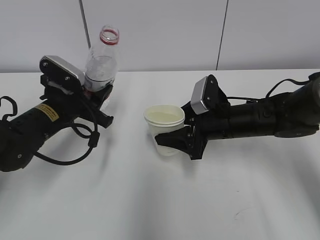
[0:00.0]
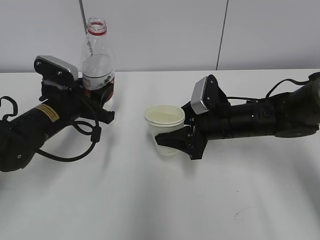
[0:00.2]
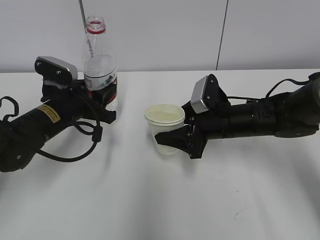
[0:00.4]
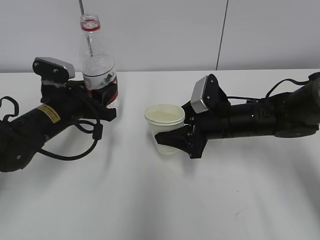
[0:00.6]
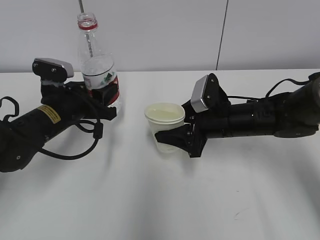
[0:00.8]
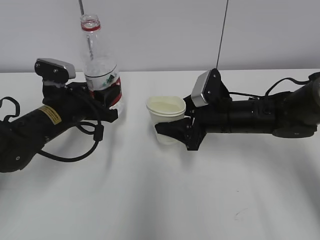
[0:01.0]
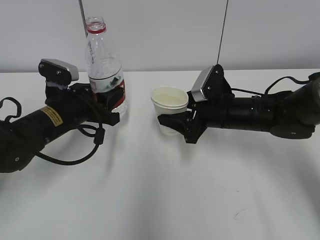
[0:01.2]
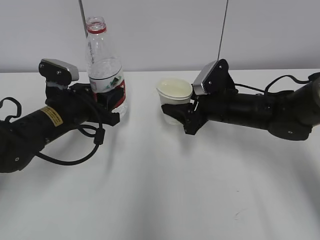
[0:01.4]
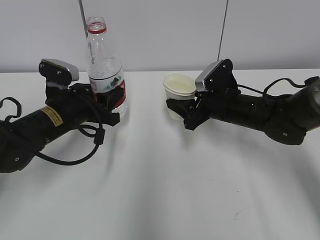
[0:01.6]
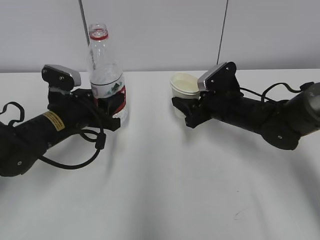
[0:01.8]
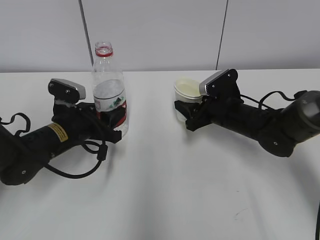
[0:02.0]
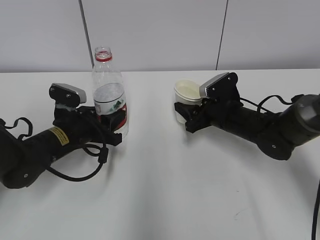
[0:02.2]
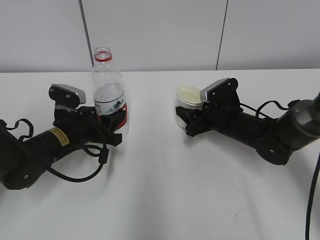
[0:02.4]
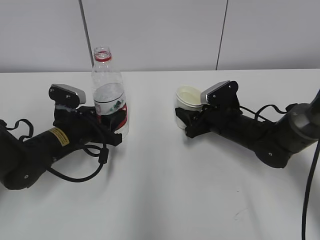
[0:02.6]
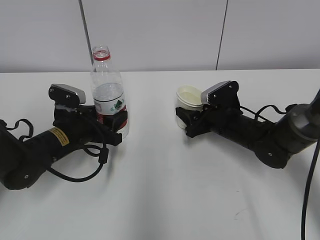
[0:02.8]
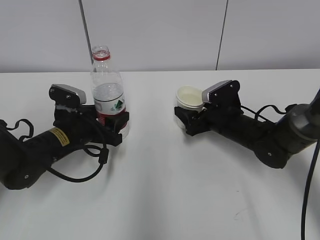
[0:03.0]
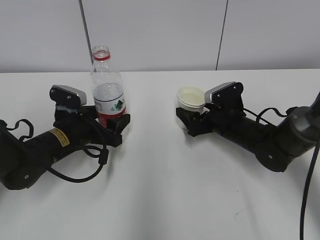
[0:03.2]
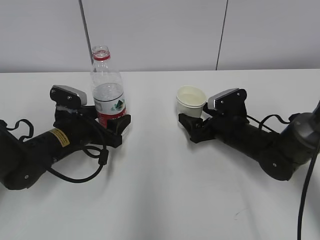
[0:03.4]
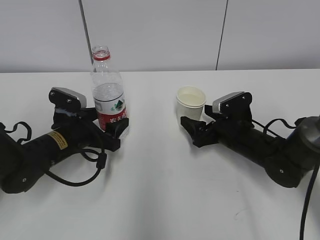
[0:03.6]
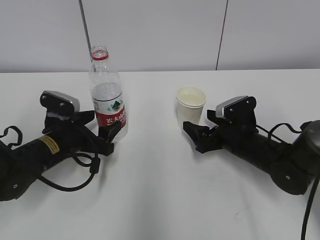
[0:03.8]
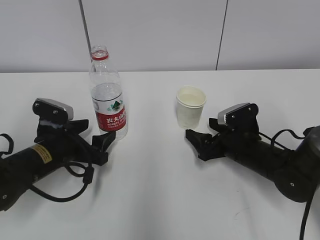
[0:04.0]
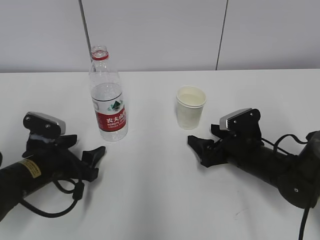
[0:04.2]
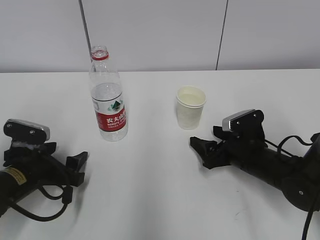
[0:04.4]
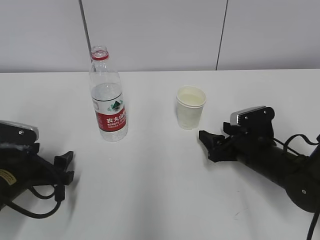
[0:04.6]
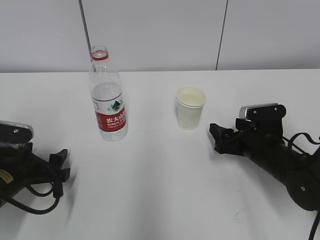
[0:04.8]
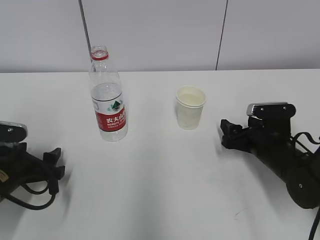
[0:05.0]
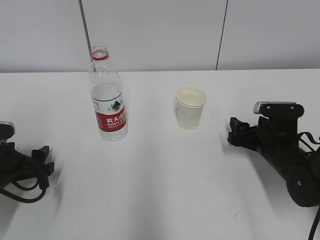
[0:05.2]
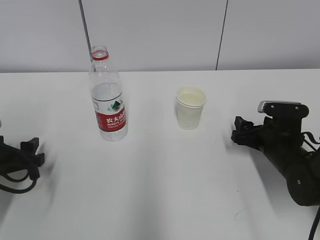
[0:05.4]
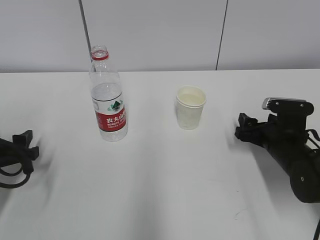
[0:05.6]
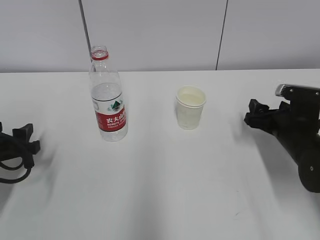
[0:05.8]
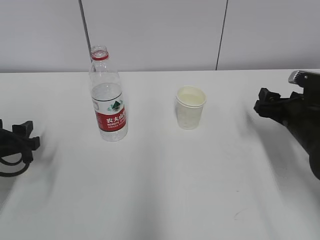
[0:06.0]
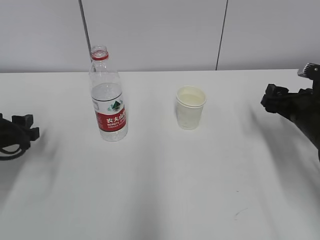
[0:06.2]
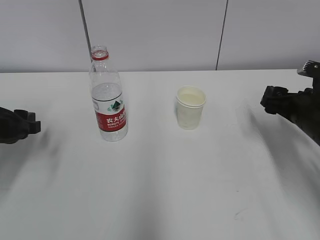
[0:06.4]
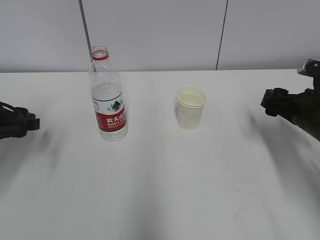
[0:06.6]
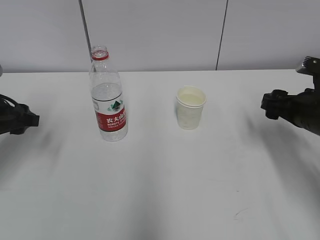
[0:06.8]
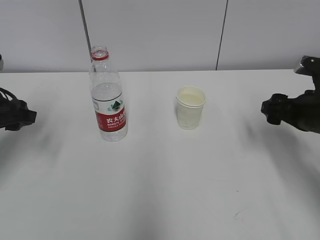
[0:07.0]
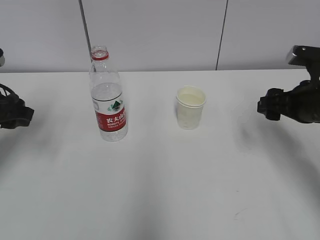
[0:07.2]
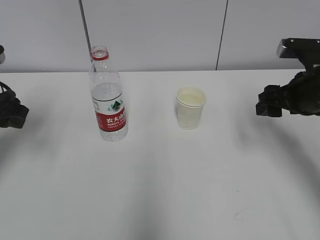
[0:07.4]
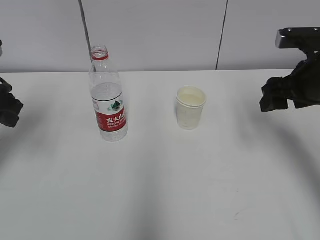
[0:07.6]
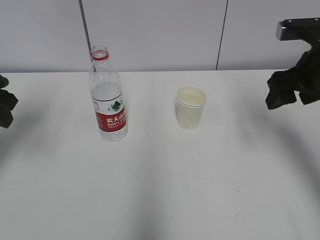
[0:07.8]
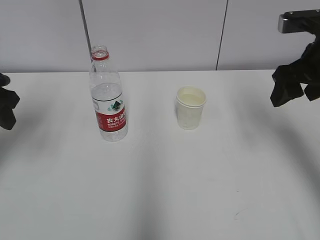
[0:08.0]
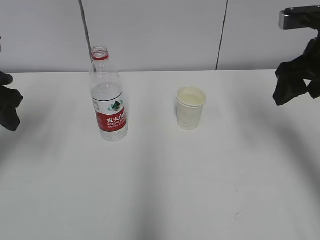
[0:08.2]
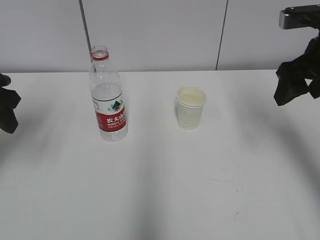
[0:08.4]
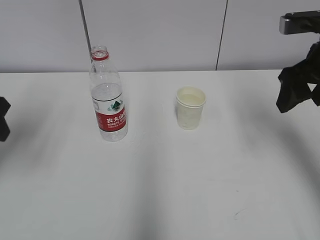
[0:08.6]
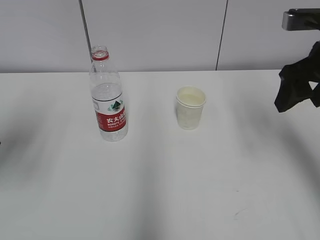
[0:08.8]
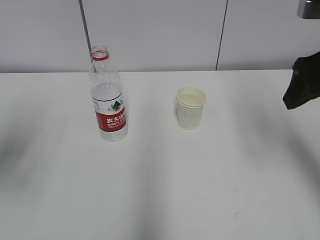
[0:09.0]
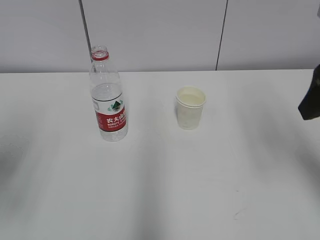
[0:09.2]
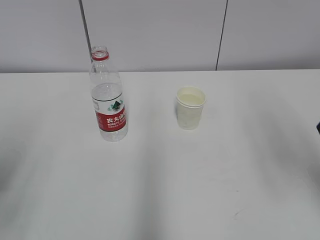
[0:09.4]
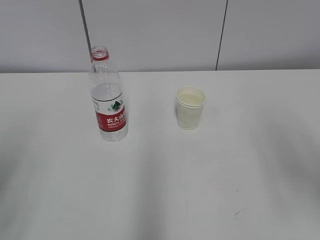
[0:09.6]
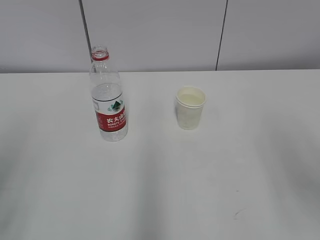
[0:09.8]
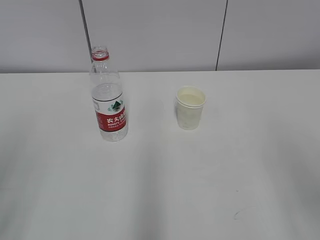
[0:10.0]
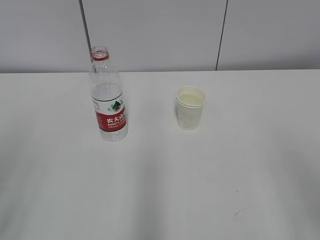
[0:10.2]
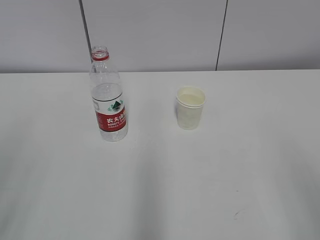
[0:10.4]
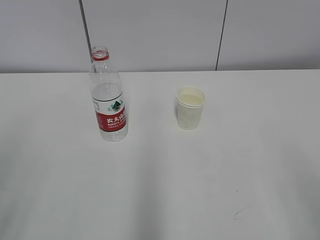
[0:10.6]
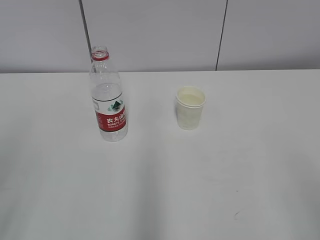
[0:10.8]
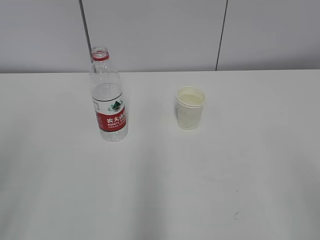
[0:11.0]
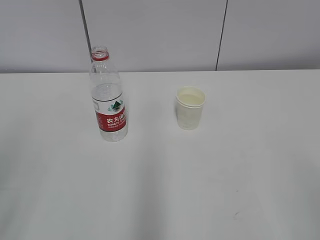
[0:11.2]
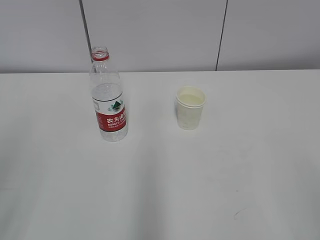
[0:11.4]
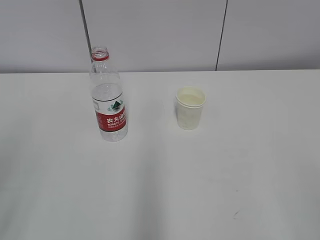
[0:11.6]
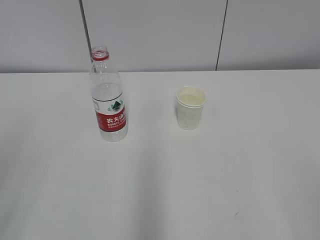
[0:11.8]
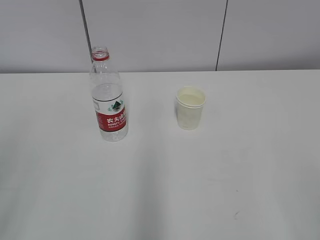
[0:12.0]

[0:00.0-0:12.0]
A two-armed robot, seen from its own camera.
0:01.6 to 0:03.0: The two grippers go roughly 5 cm downward. The right gripper opens its fingers; the left gripper opens up.
0:03.0 to 0:04.4: The right gripper travels backward by roughly 10 cm. Meanwhile the left gripper moves backward and to the left, about 10 cm.
0:04.4 to 0:06.0: The left gripper is displaced to the left by roughly 5 cm. Meanwhile the right gripper goes some 10 cm to the right and upward.
0:06.0 to 0:07.6: The two grippers go roughly 10 cm upward.
0:07.6 to 0:09.0: The right gripper is displaced upward and backward by about 10 cm; the left gripper shifts roughly 10 cm backward.
0:09.0 to 0:10.4: The right gripper travels backward by roughly 20 cm. The left gripper goes approximately 15 cm backward.

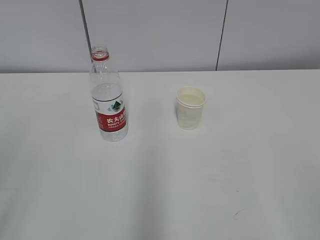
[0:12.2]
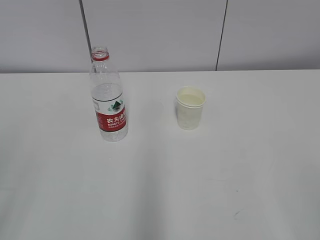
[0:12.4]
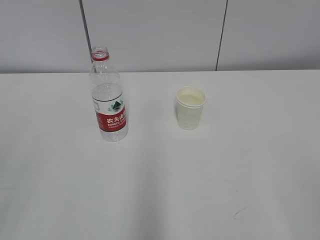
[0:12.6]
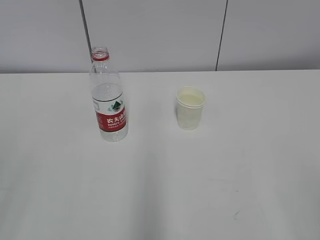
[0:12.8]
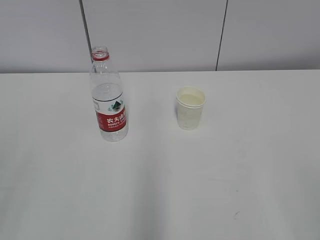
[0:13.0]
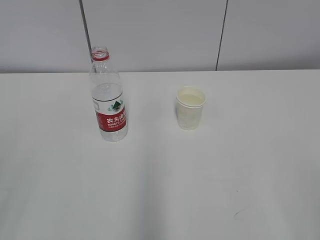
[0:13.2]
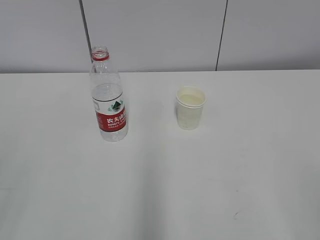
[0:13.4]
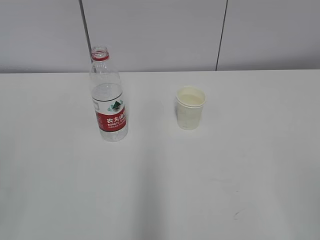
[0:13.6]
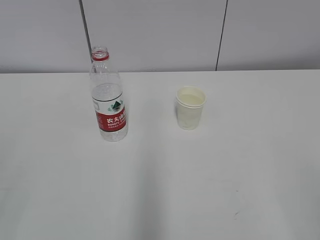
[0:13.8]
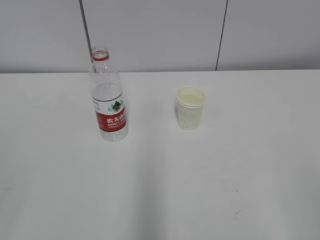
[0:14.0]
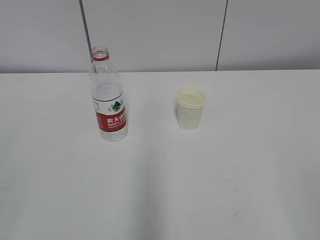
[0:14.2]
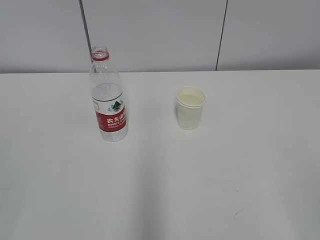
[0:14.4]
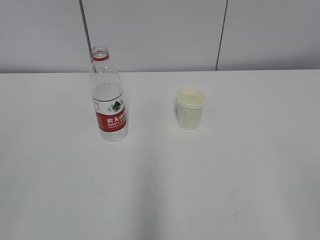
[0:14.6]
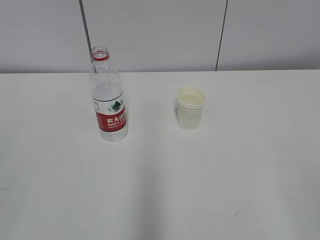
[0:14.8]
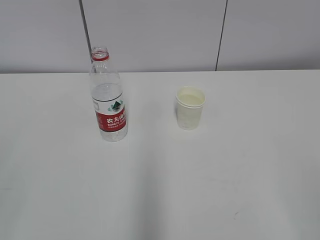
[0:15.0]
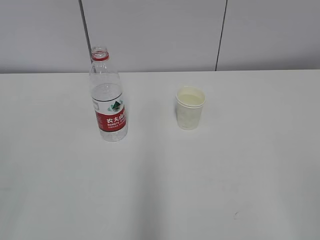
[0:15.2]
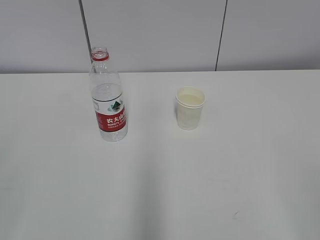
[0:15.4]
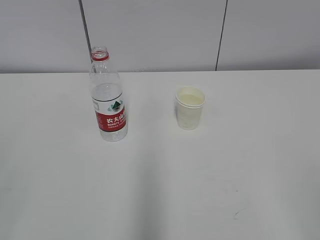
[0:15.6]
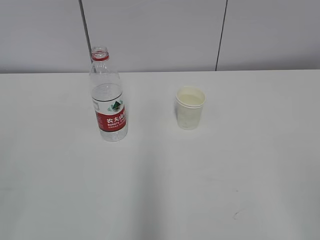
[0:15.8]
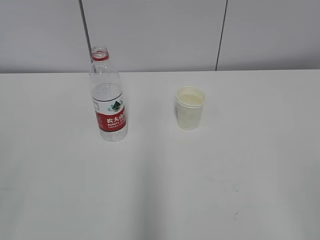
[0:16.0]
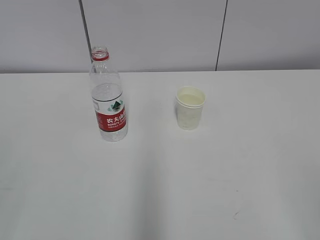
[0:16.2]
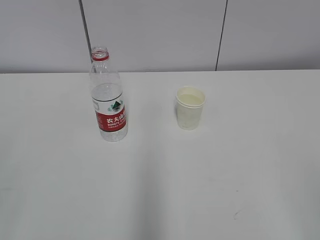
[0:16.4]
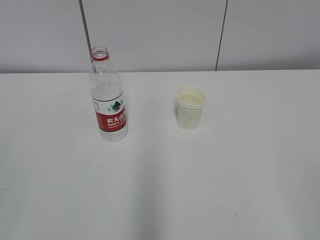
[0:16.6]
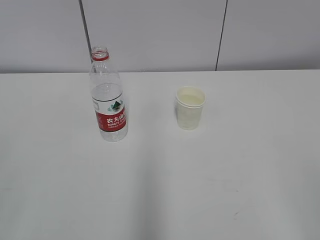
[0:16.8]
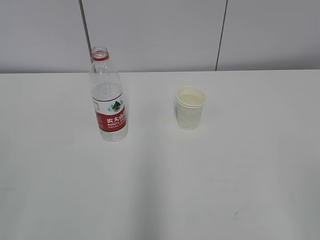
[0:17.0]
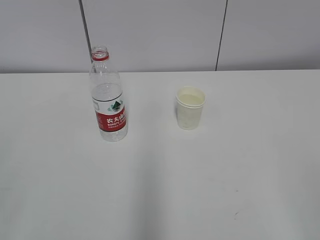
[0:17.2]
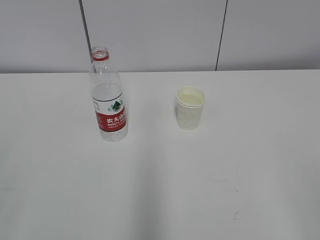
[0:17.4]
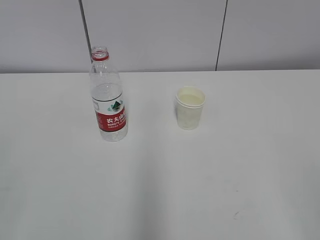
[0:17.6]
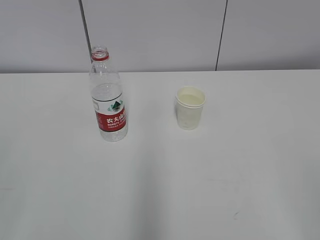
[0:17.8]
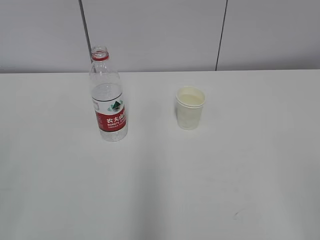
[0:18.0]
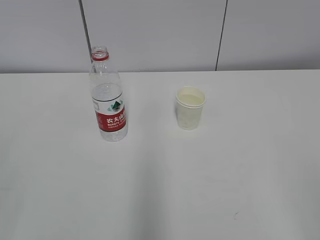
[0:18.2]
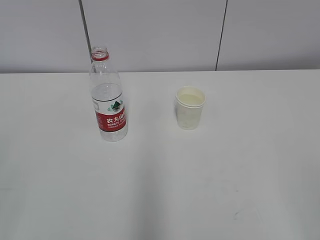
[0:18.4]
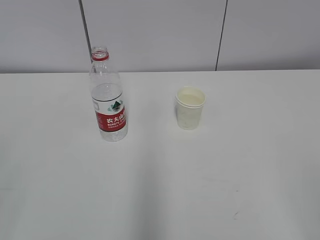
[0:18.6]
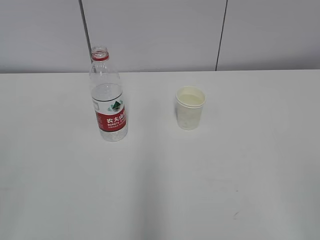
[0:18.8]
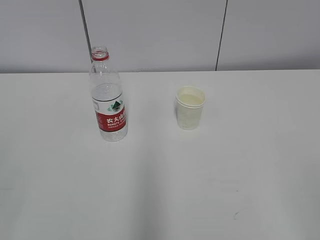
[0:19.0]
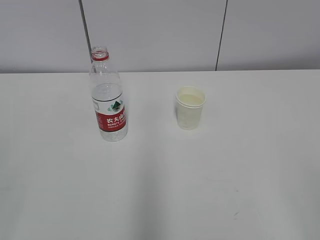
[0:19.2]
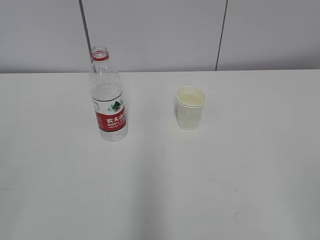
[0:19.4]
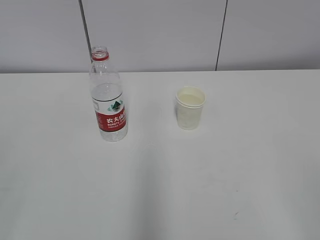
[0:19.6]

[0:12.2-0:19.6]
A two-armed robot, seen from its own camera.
0:15.2 to 0:19.6: Neither gripper changes place.

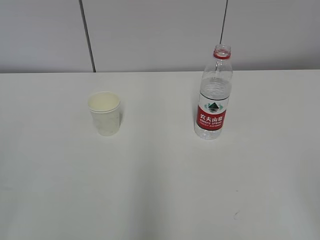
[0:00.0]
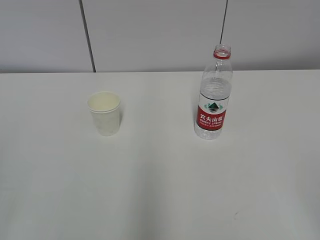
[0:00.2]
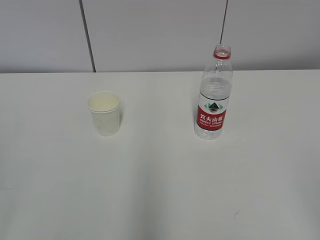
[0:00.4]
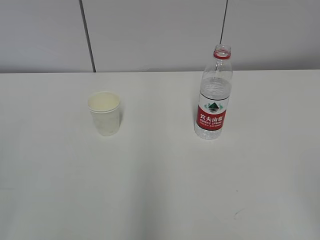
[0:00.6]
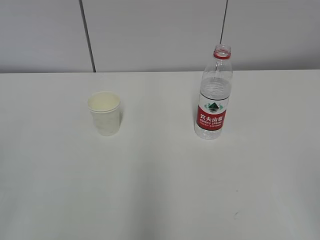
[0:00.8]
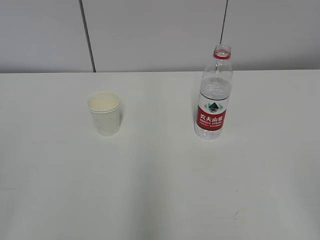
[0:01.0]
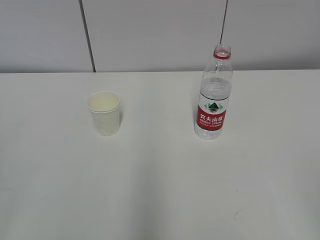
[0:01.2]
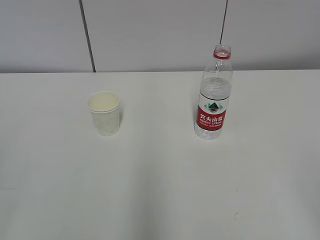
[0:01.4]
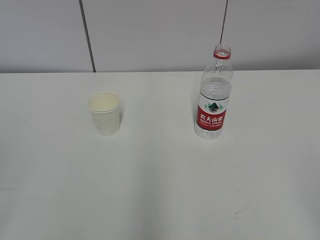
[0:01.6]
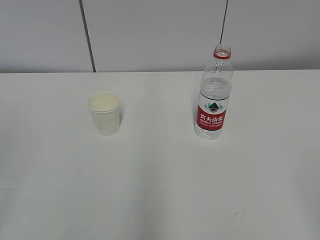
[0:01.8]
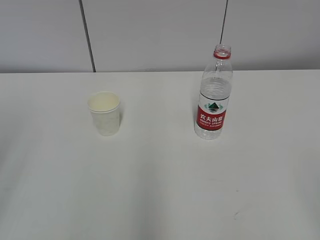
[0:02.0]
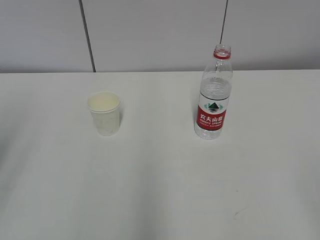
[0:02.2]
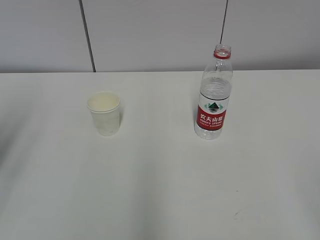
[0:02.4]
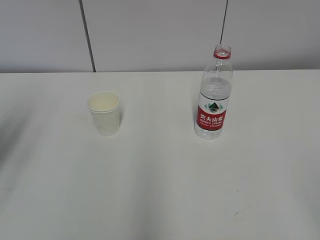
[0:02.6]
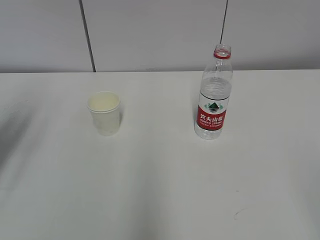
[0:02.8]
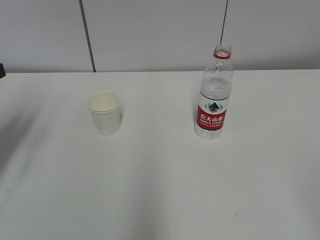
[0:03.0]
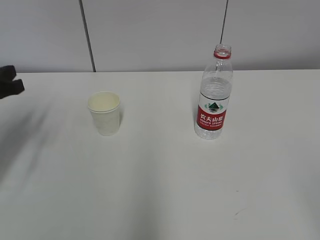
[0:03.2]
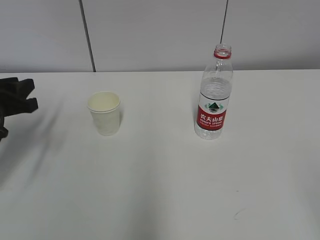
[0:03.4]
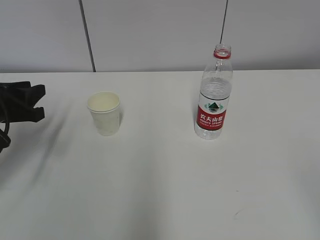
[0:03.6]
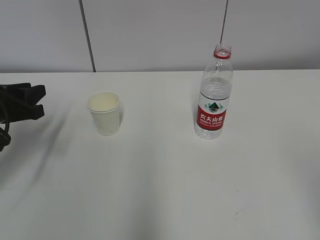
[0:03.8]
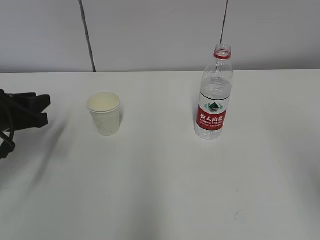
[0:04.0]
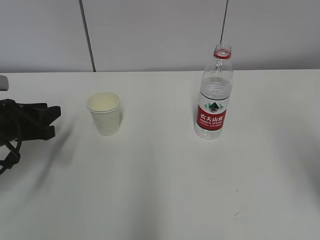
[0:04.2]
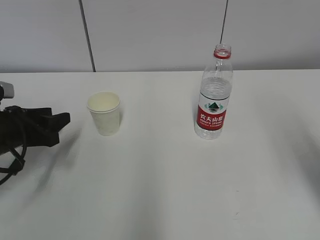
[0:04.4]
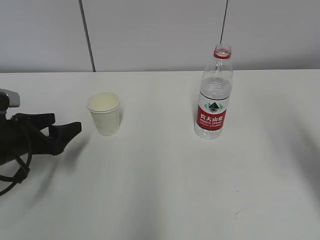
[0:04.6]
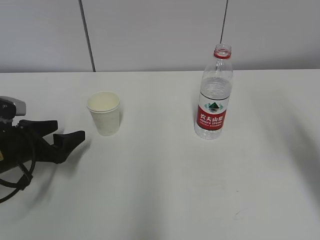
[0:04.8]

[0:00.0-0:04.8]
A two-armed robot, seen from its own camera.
0:01.6 to 0:03.2: The left gripper heads forward, covering approximately 30 cm.
0:03.2 to 0:04.8: The left gripper heads downward, covering about 10 cm, and opens. Meanwhile the right gripper travels forward by some 20 cm.
